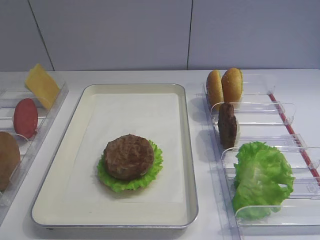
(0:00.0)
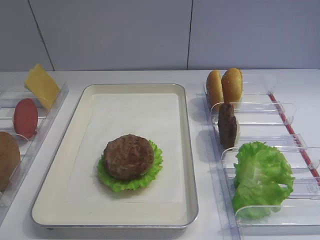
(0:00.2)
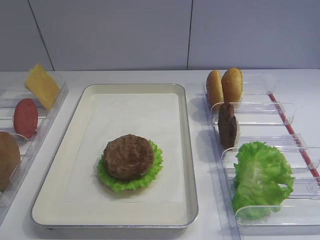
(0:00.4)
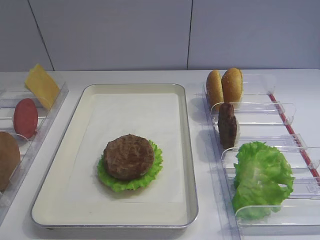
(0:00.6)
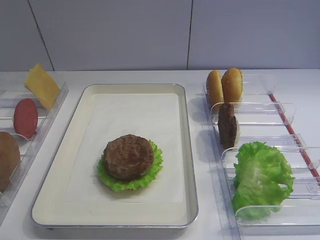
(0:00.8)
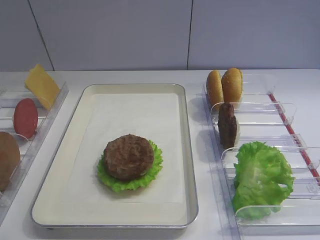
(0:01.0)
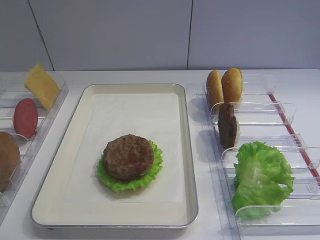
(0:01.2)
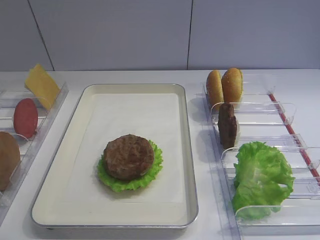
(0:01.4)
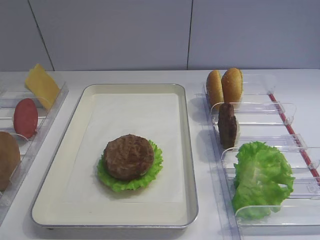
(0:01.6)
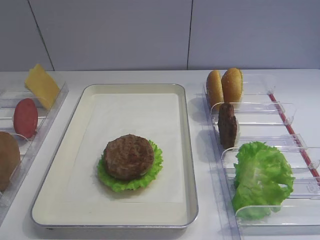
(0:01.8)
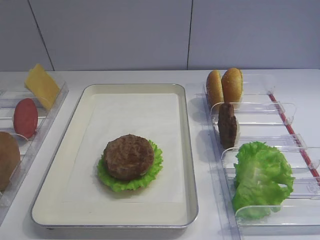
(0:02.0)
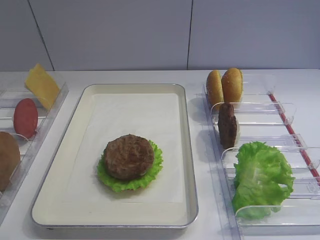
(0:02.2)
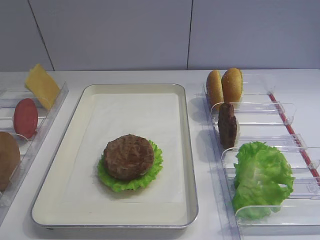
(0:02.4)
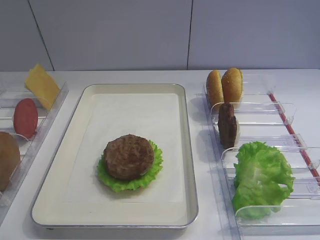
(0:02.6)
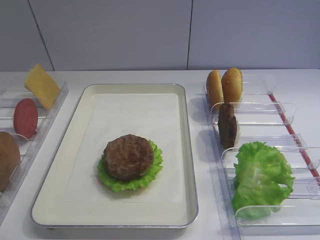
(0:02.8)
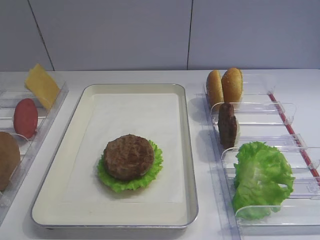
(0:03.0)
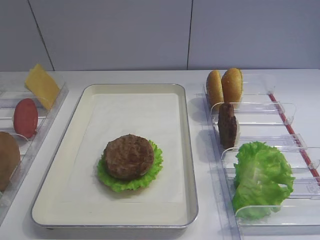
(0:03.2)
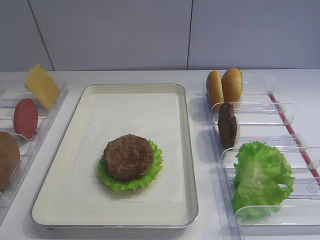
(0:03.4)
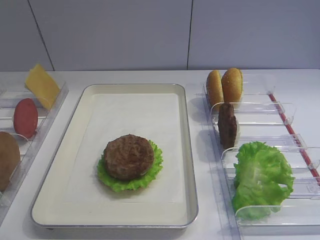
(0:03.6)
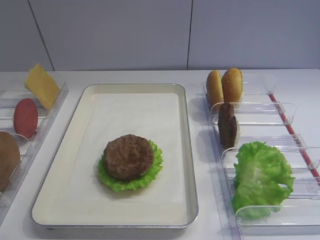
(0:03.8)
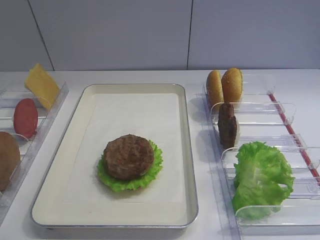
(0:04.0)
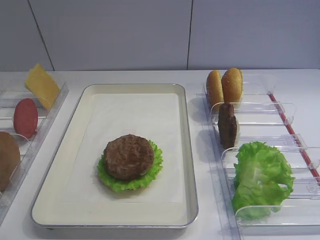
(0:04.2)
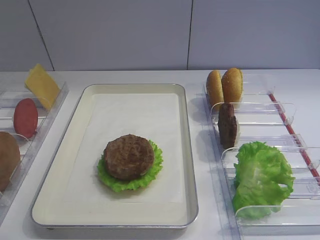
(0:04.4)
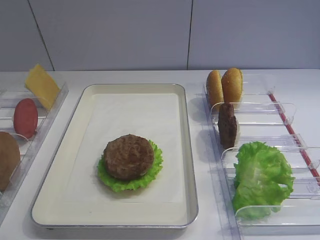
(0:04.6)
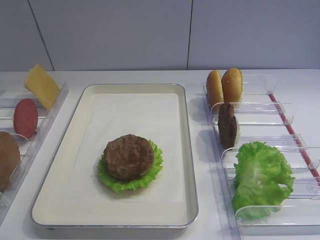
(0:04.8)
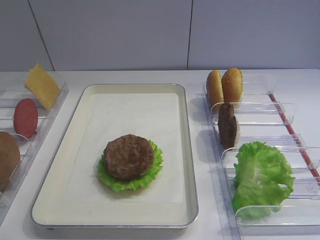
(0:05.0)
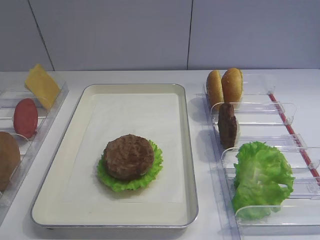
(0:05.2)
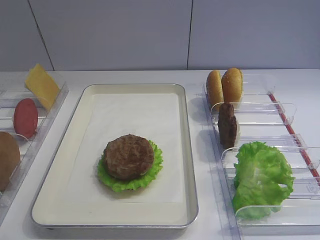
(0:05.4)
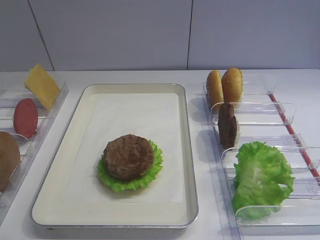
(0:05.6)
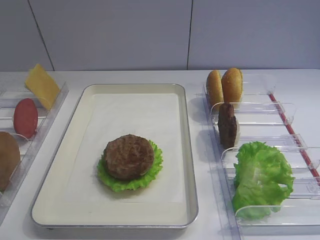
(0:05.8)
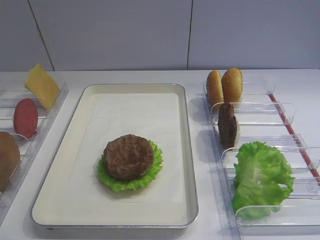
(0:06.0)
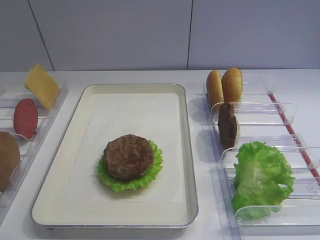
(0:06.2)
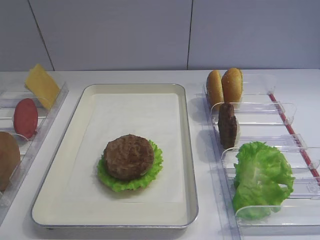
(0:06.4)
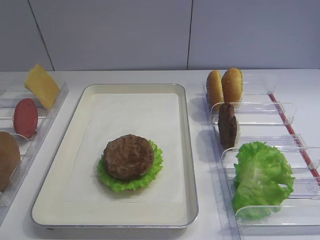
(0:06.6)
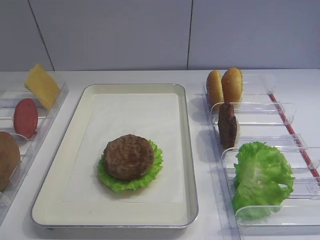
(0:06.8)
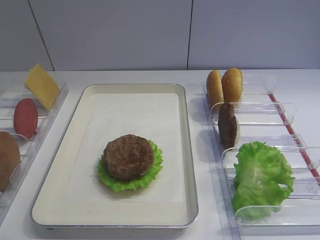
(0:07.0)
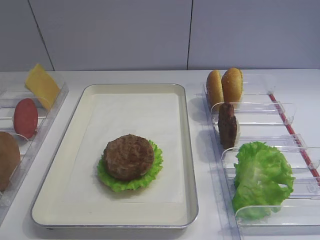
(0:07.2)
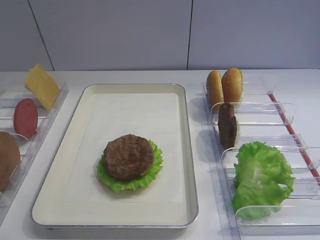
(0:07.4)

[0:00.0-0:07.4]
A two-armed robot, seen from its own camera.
0:00.0 to 0:07.4: Neither gripper changes place.

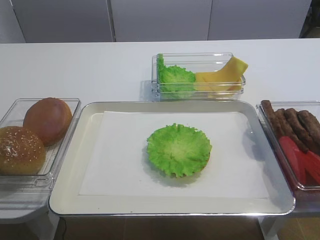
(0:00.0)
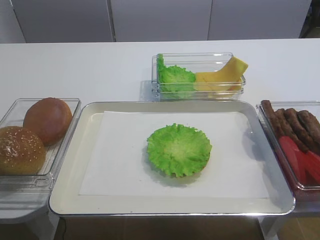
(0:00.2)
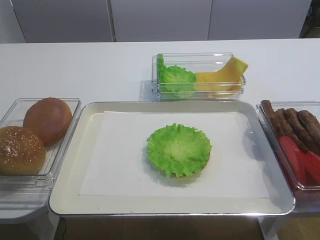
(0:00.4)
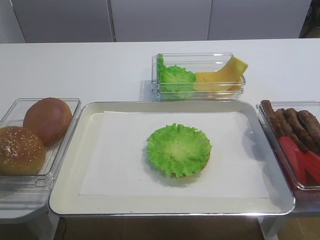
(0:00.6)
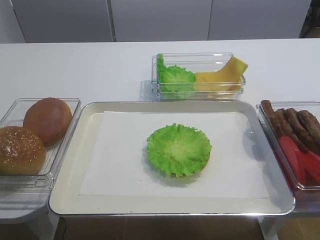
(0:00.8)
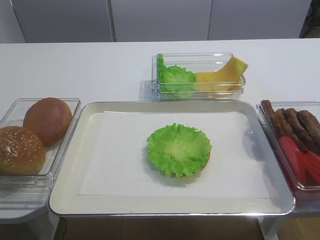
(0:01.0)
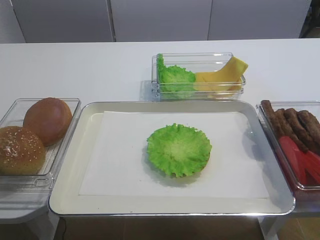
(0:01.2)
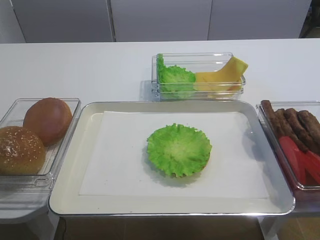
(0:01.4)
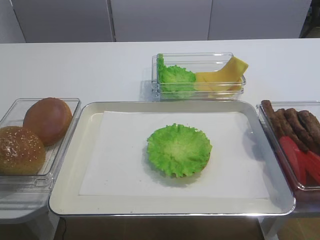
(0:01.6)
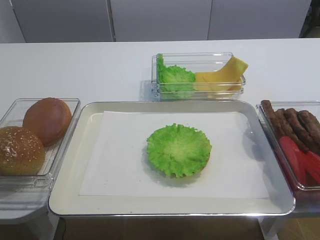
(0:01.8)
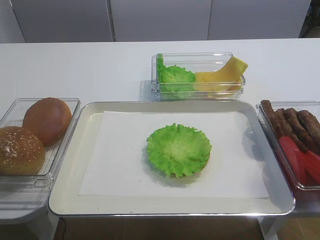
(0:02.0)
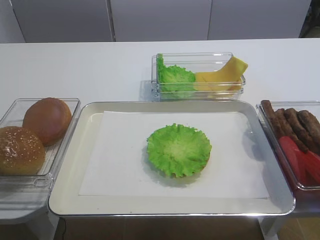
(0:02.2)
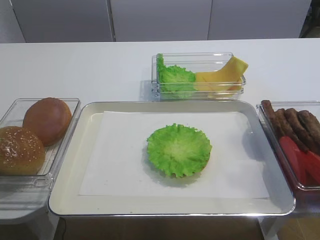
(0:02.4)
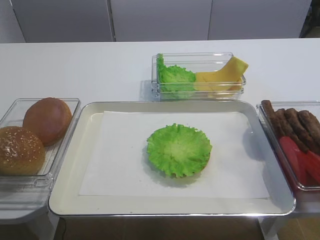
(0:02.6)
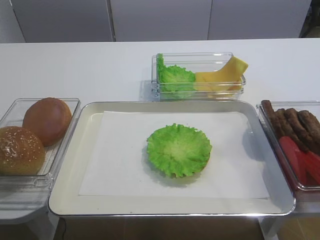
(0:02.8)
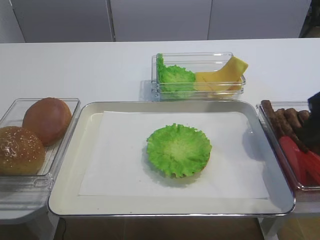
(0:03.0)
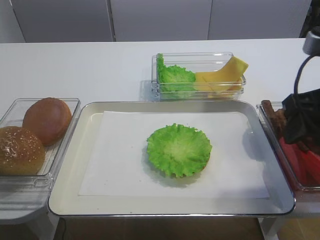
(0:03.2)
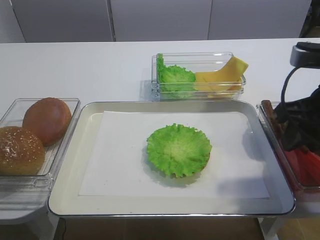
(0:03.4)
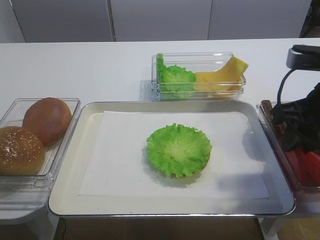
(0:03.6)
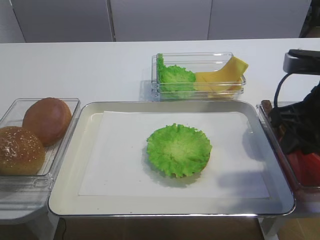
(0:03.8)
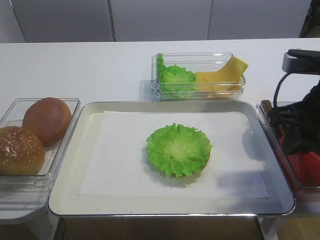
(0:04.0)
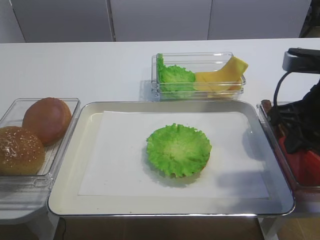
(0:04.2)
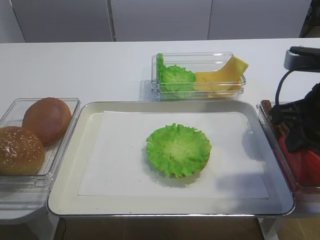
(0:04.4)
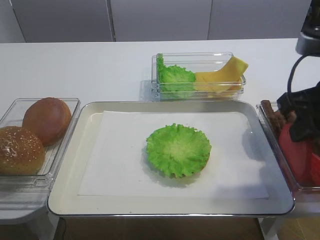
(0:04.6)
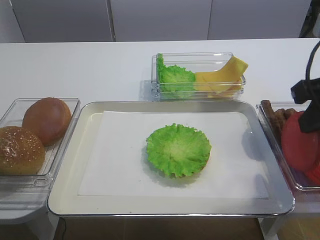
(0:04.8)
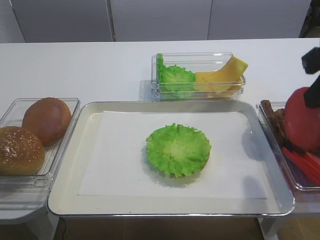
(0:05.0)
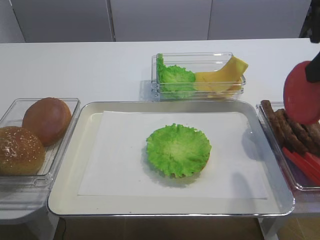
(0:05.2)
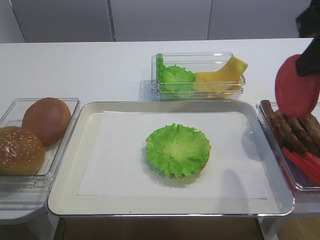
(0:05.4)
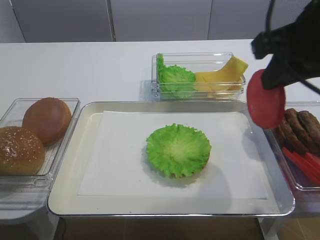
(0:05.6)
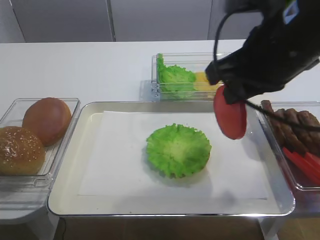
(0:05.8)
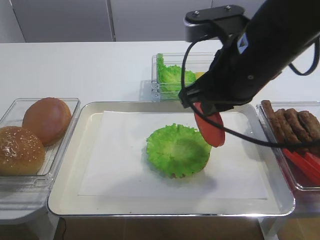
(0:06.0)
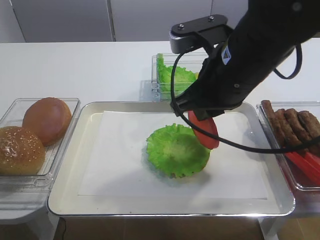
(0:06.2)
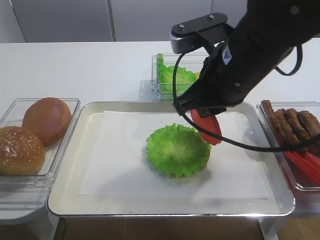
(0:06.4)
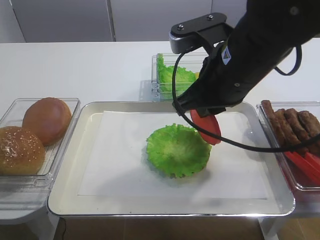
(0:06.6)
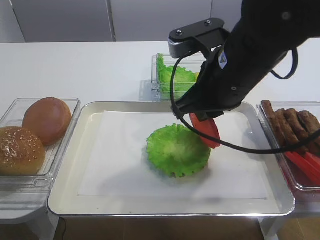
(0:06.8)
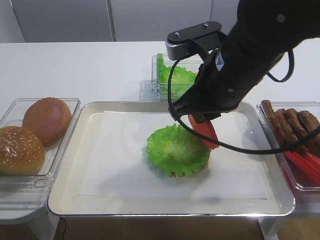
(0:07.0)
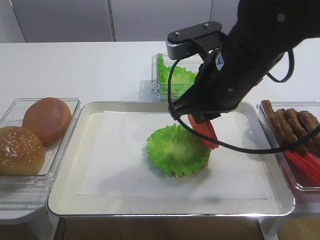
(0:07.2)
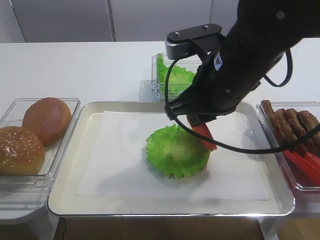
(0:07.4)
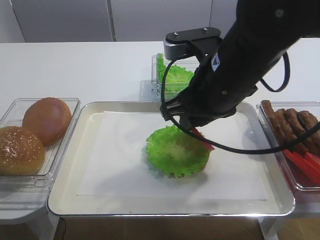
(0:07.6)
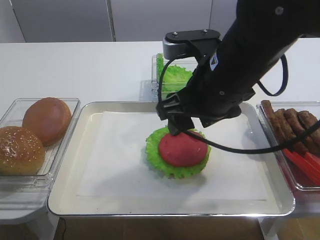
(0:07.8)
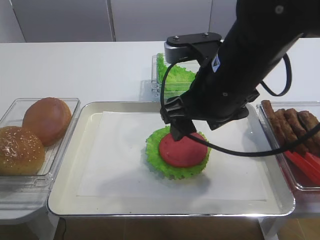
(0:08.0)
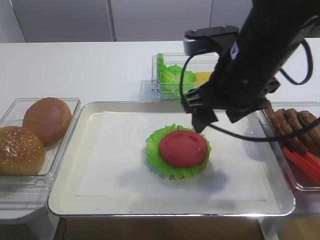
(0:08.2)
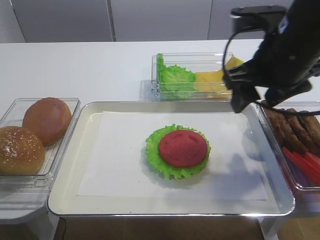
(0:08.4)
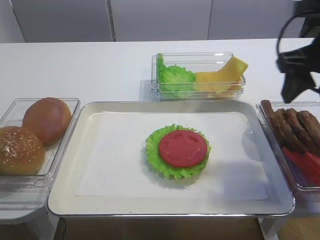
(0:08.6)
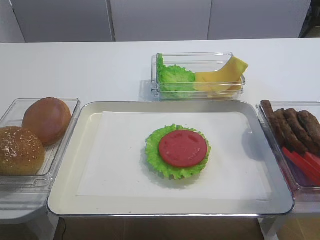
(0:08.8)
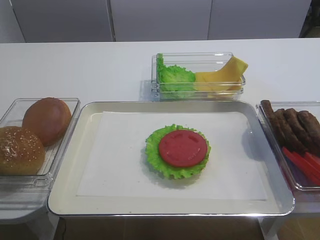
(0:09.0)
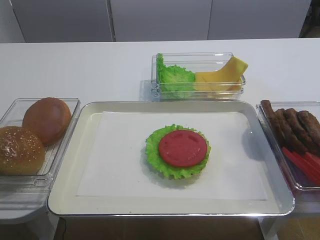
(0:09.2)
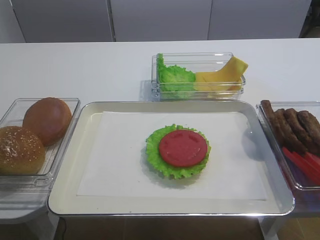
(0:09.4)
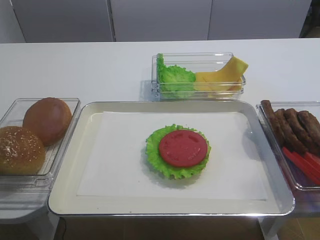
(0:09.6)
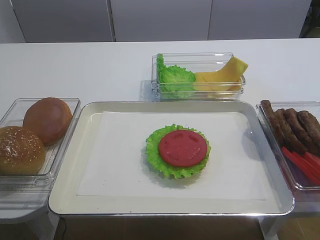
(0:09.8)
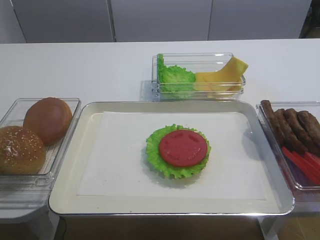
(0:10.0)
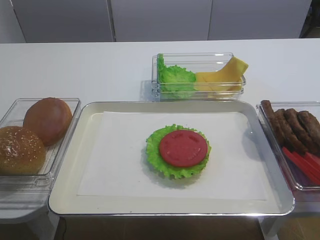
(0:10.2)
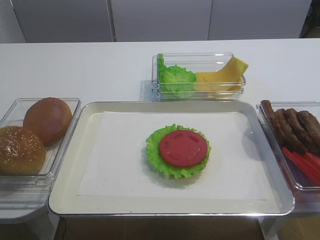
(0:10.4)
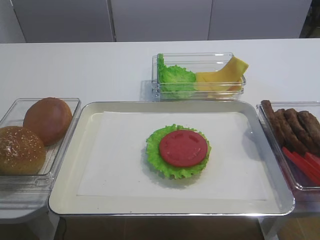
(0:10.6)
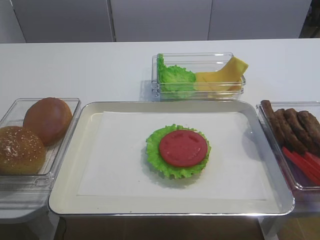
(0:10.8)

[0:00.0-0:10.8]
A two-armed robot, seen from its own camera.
Step, 0:00.0 to 0:04.8: Pick up the tomato slice with the right gripper.
Step, 0:05.0 to 0:08.0: Place the tomato slice on the lettuce leaf with the right gripper.
0:01.6 to 0:03.0: The right gripper goes about 20 cm forward.
0:03.0 to 0:04.6: The right gripper closes up.
0:04.6 to 0:06.2: The right gripper heads to the left, covering about 15 cm.
0:06.2 to 0:07.8: The right gripper opens up.
0:07.8 to 0:09.2: The right gripper moves to the right and backward, about 25 cm.

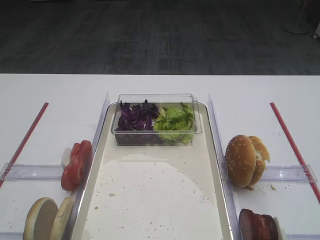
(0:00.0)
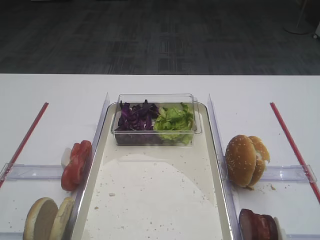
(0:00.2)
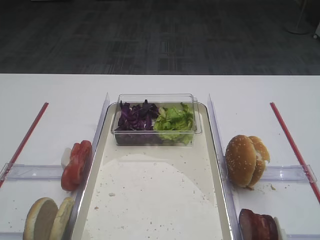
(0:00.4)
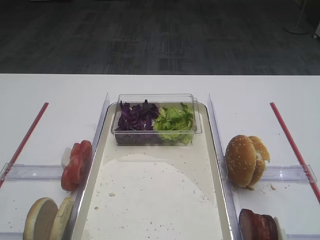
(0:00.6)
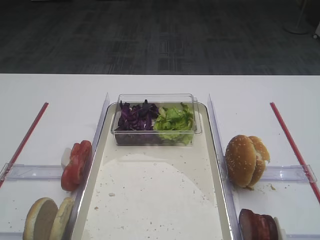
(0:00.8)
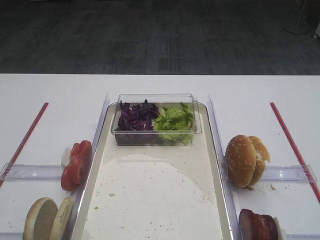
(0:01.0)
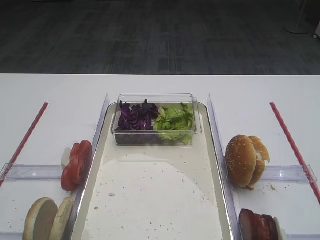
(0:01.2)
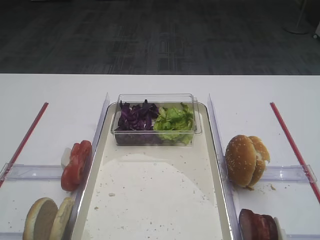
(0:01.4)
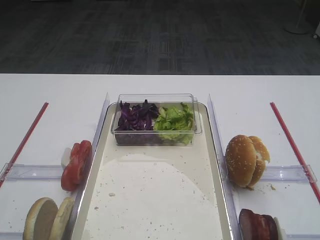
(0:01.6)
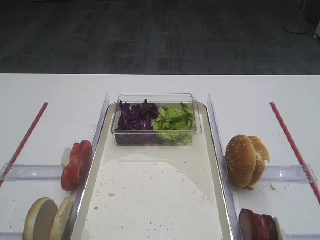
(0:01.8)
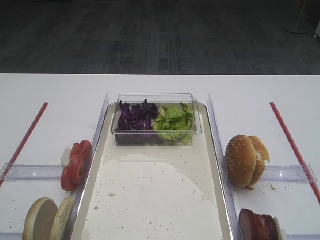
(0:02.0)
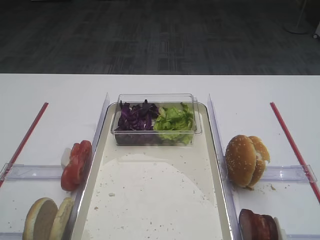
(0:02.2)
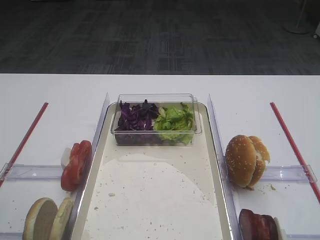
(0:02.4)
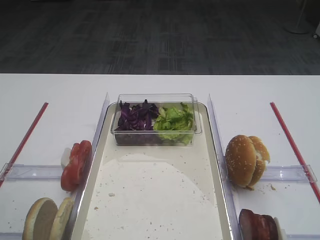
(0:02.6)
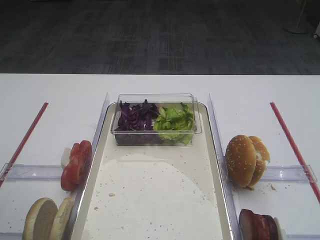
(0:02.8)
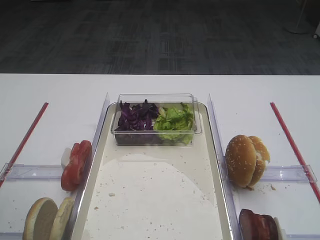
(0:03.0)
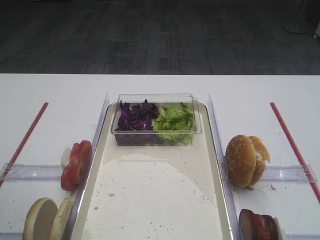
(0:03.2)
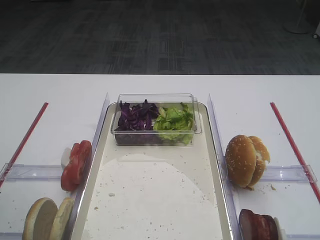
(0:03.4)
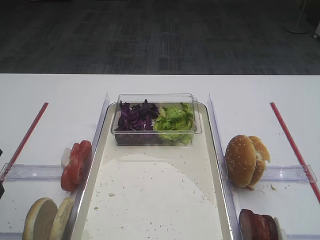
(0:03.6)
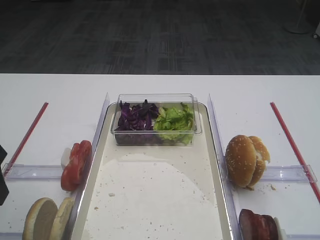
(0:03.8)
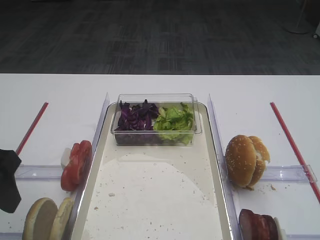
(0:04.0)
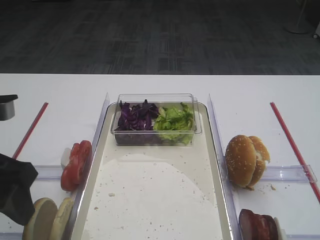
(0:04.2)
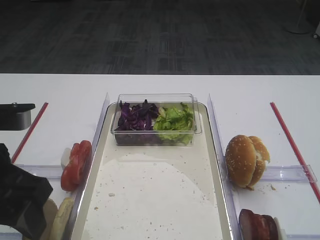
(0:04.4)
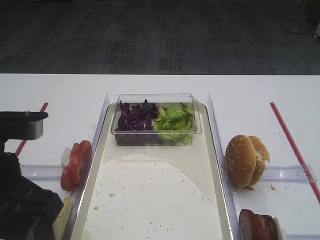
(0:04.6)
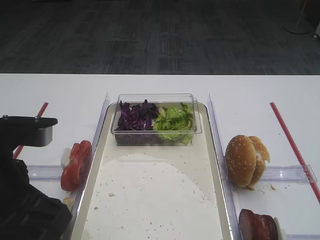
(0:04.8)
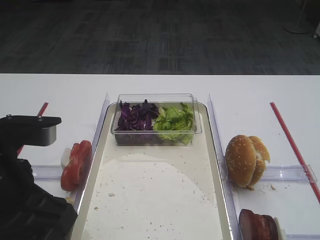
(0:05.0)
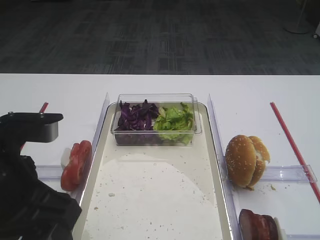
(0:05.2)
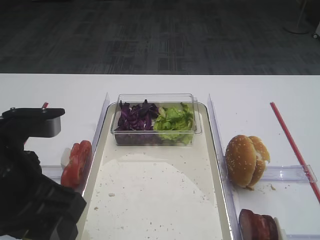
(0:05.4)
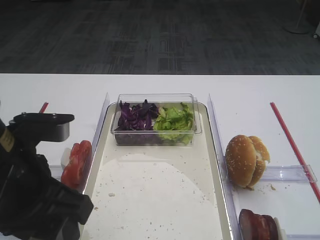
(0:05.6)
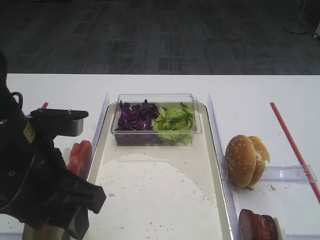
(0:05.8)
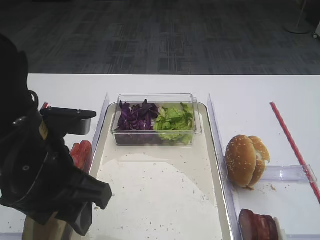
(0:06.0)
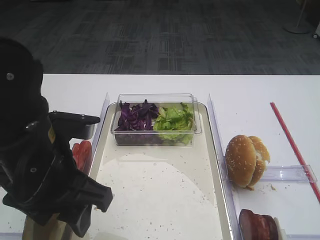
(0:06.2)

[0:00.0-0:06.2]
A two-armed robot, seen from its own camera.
0:03.2 to 0:04.6: The left gripper heads to the right, covering about 10 cm.
0:04.6 to 0:06.2: The left gripper changes place by approximately 5 cm.
